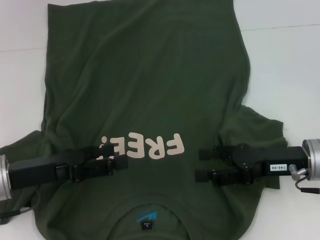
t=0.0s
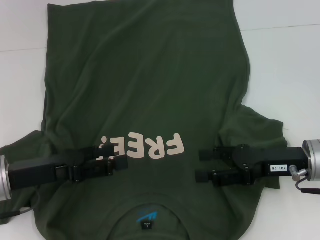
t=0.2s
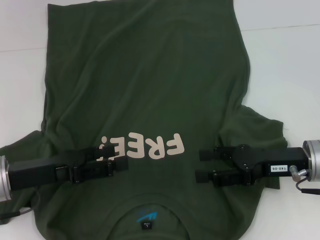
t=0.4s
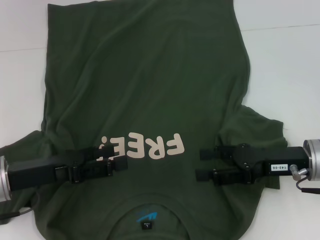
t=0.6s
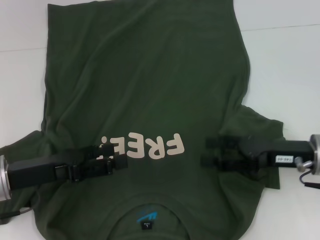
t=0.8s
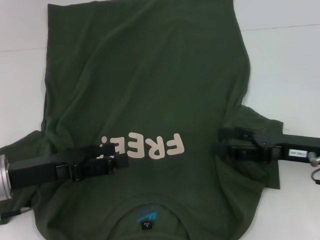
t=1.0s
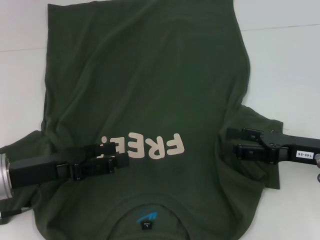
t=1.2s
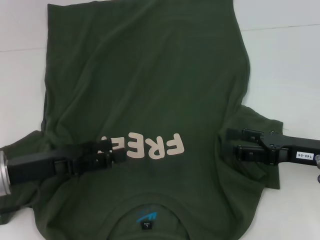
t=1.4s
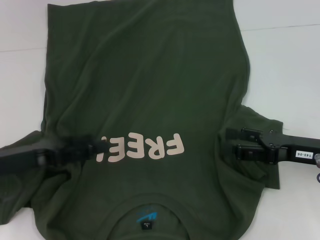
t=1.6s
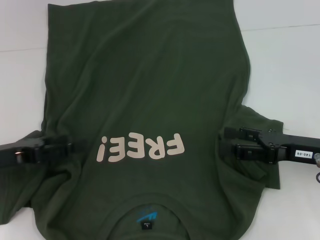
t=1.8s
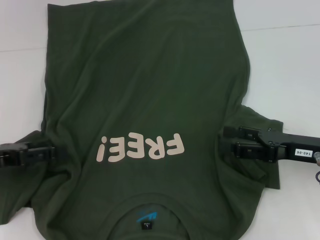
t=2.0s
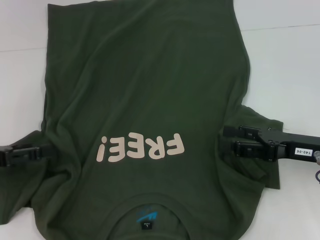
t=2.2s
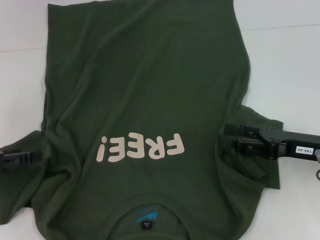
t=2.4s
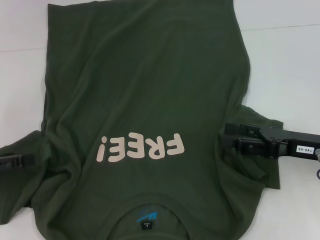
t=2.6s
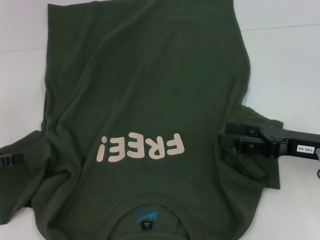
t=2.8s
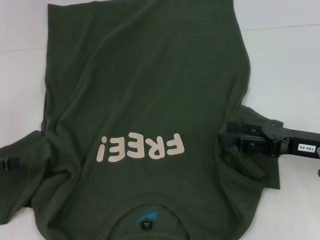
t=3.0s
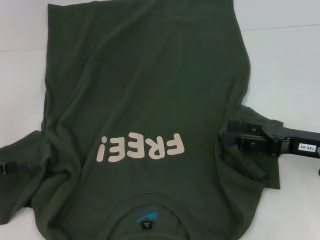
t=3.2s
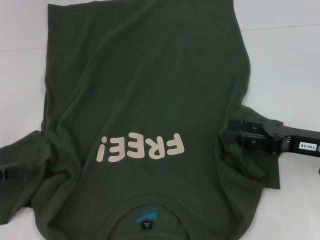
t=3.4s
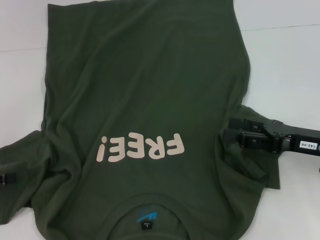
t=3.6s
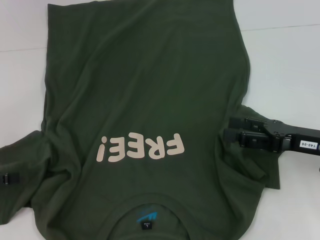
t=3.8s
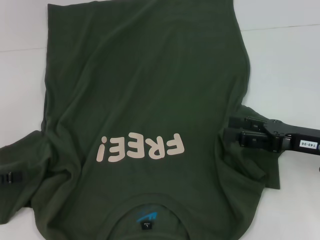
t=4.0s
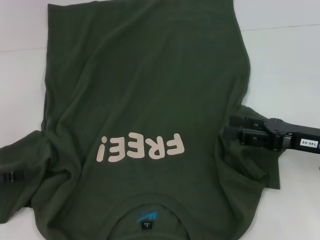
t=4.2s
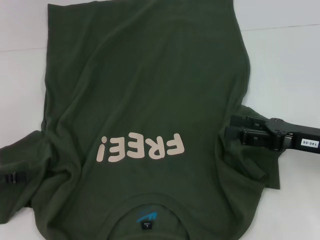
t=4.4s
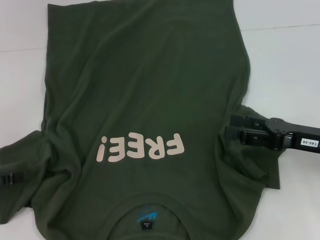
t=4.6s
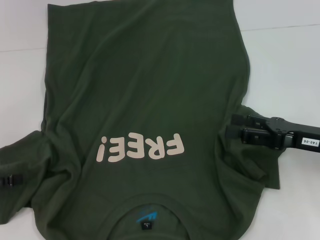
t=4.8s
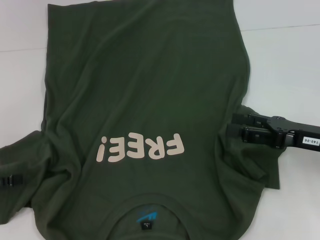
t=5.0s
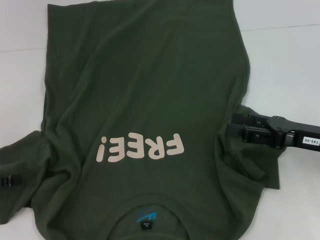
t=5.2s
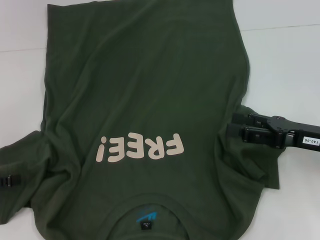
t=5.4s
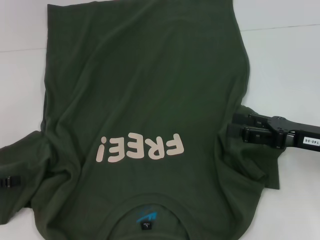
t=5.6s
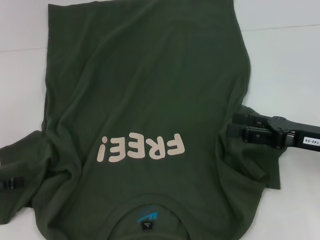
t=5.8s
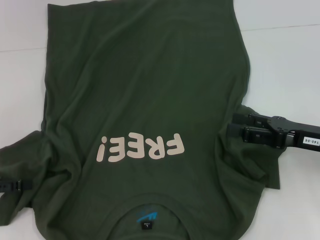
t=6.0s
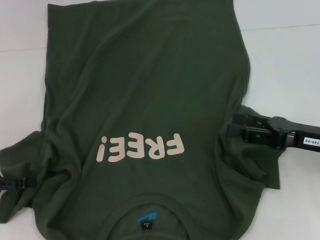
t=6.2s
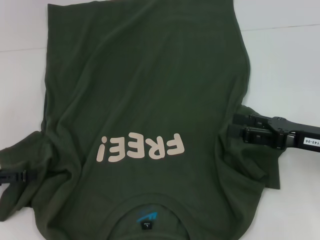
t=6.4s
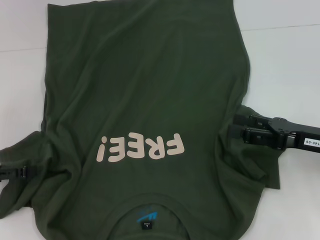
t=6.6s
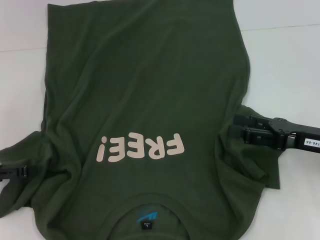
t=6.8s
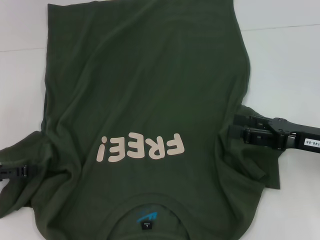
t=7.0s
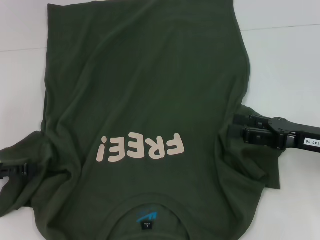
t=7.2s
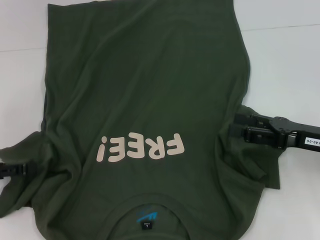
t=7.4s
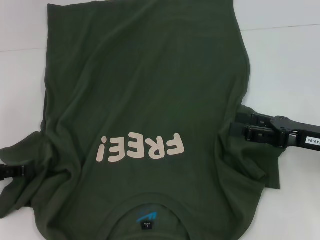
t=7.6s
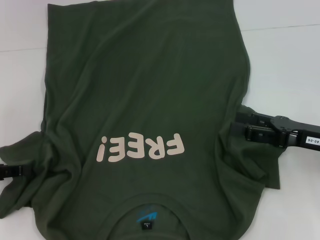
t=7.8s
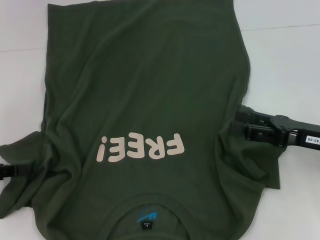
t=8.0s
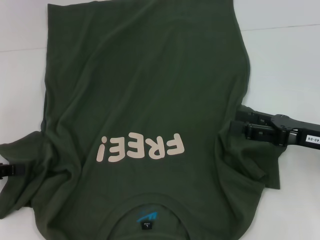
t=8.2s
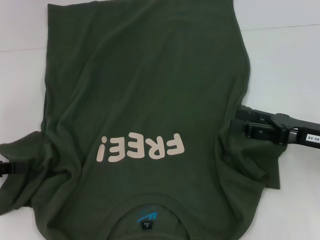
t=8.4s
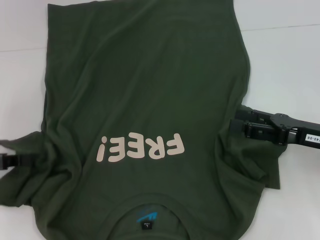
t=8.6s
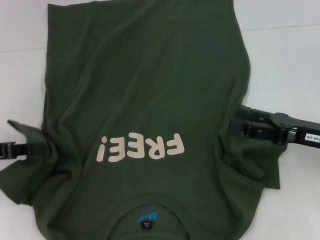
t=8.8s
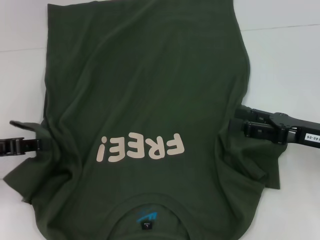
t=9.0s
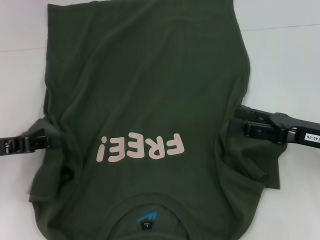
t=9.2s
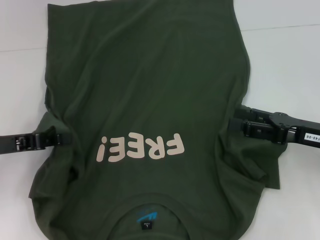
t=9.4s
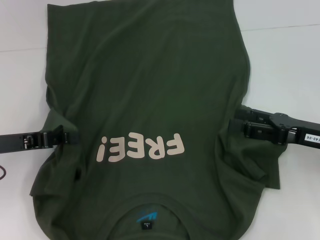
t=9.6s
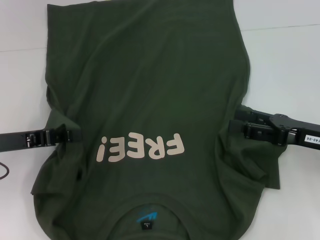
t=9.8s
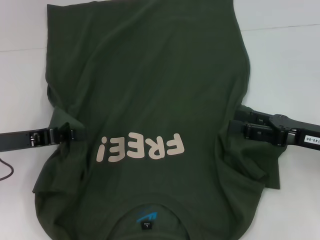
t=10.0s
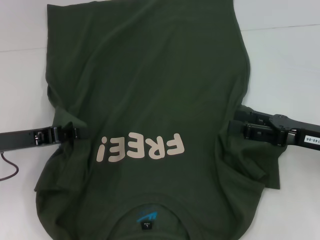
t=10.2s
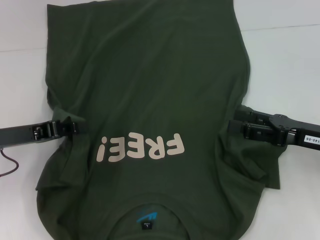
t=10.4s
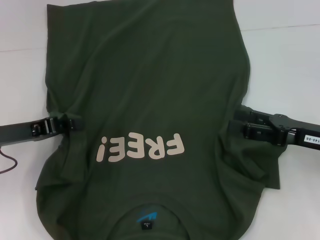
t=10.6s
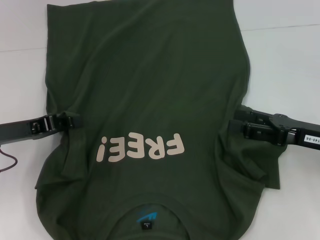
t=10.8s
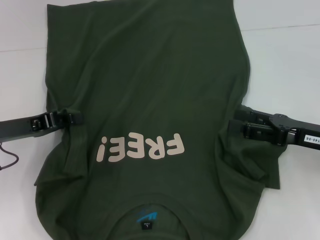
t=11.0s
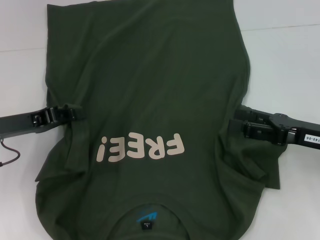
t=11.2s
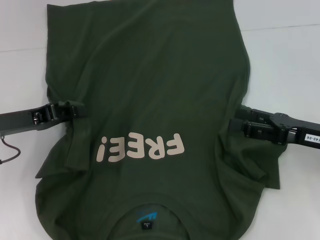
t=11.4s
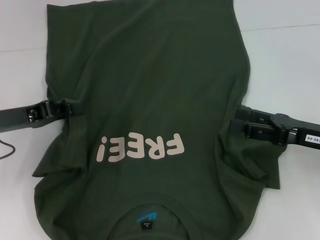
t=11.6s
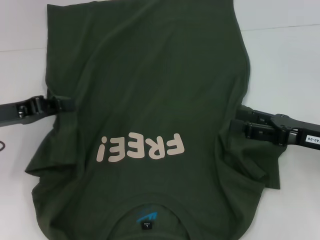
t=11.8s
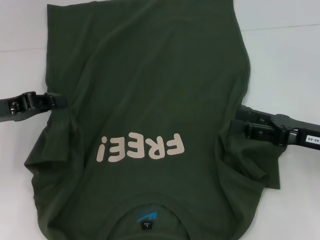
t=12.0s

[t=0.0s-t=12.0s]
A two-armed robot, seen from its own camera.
t=0.0s to t=1.6s: There are only small adjustments of the grippers.
t=1.6s to t=3.0s: The left gripper moves to the left, approximately 10 cm.
t=3.0s to t=4.4s: The grippers move only a little.
t=4.4s to t=6.0s: Both grippers stay put.
t=6.0s to t=7.6s: The grippers stay close to where they were, moving slightly.
t=7.6s to t=9.0s: The left gripper closes up.
t=9.0s to t=10.4s: The left gripper moves roughly 5 cm.
t=10.4s to t=12.0s: The grippers make only small movements.

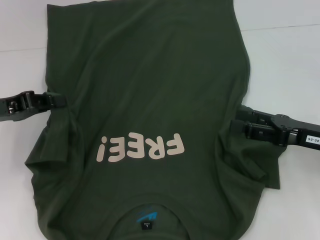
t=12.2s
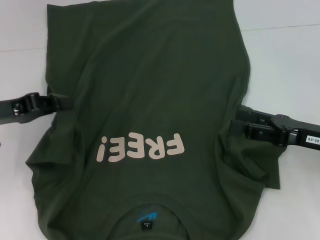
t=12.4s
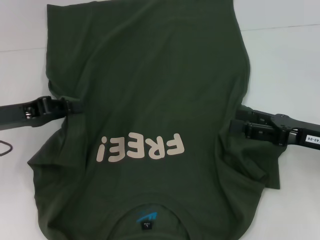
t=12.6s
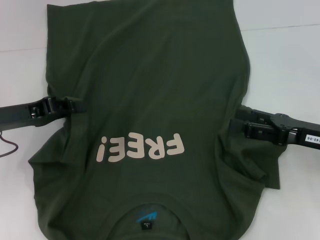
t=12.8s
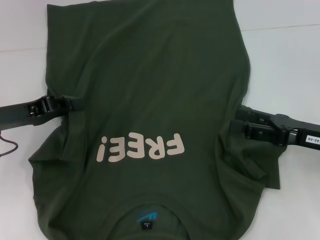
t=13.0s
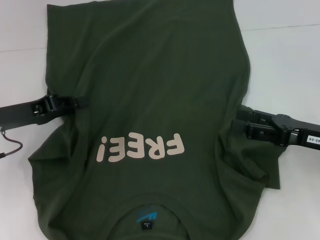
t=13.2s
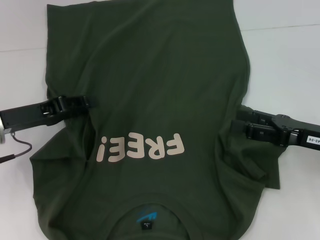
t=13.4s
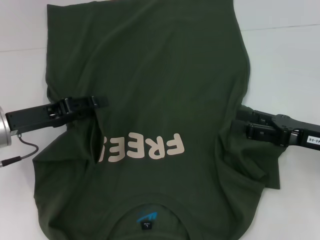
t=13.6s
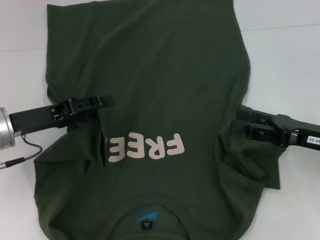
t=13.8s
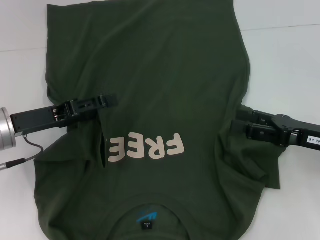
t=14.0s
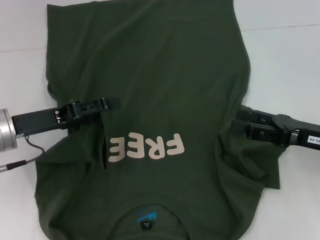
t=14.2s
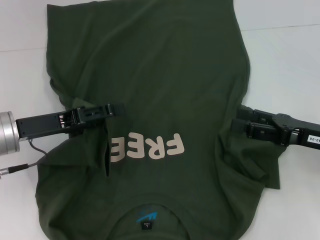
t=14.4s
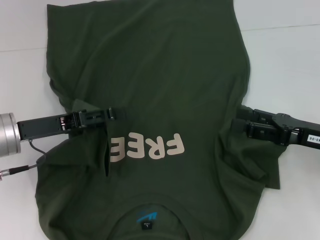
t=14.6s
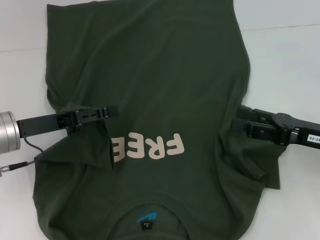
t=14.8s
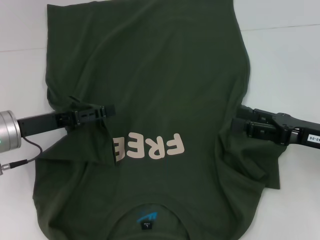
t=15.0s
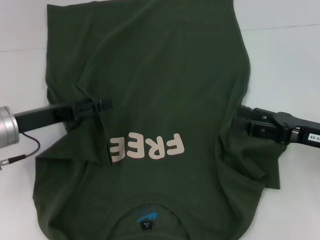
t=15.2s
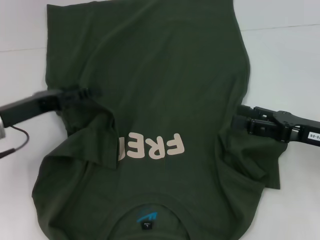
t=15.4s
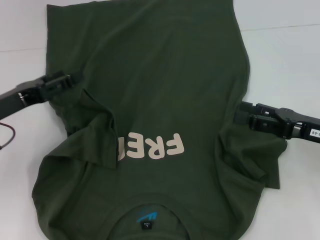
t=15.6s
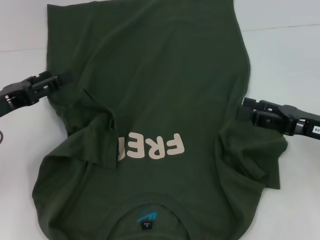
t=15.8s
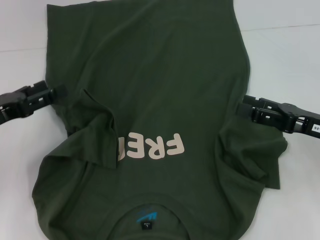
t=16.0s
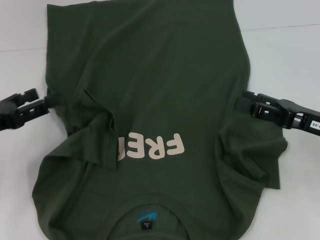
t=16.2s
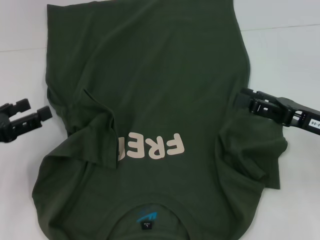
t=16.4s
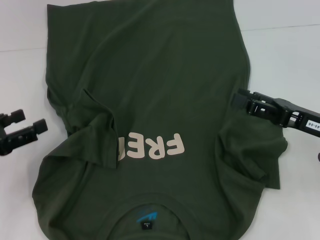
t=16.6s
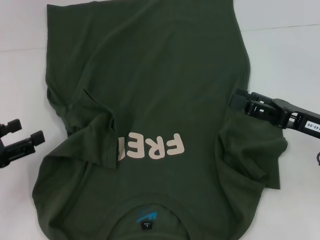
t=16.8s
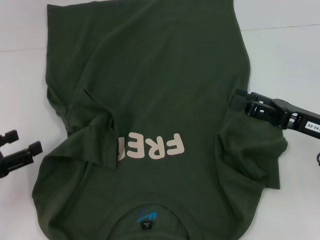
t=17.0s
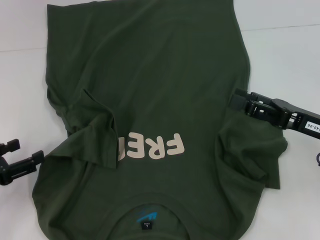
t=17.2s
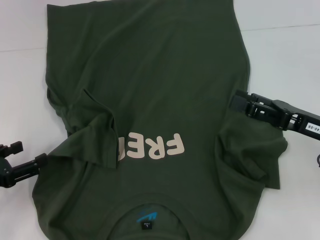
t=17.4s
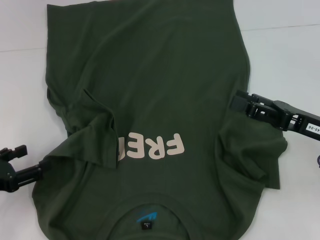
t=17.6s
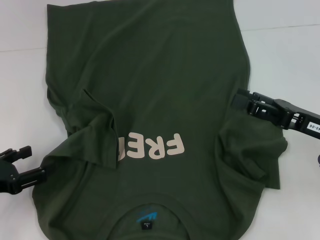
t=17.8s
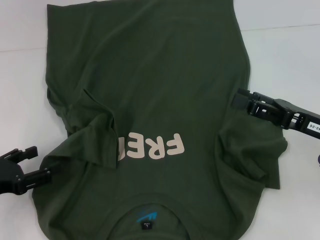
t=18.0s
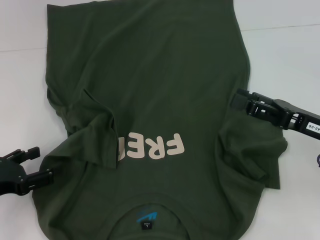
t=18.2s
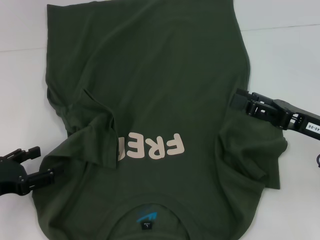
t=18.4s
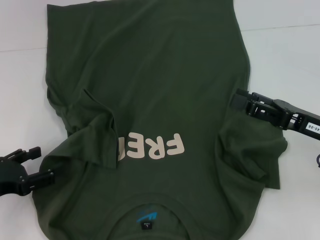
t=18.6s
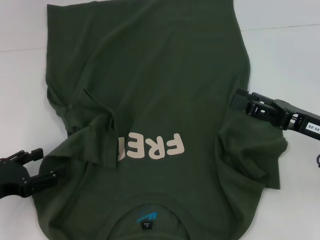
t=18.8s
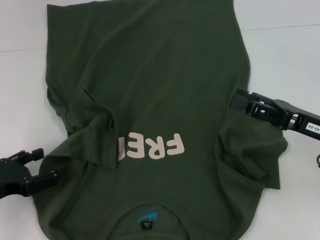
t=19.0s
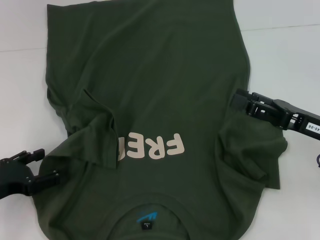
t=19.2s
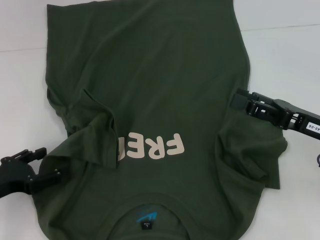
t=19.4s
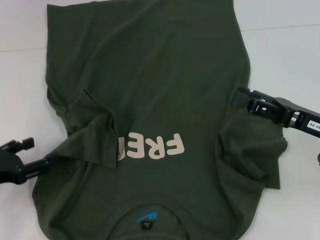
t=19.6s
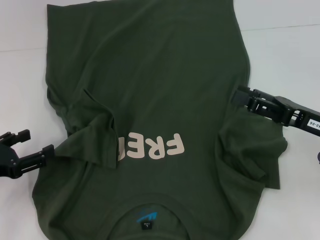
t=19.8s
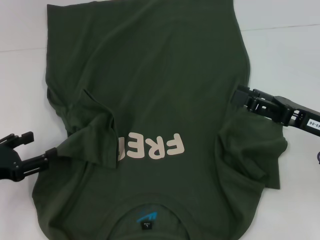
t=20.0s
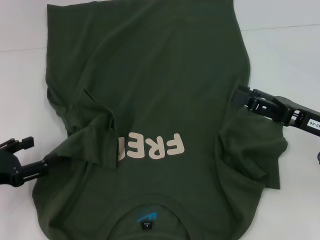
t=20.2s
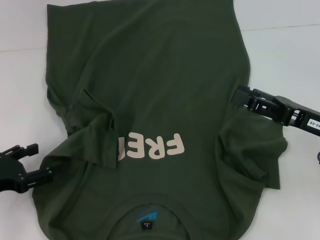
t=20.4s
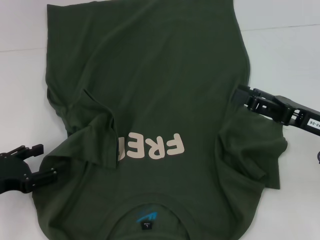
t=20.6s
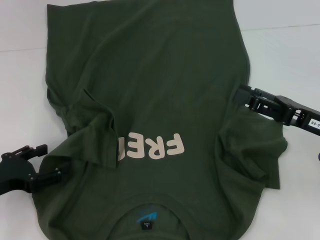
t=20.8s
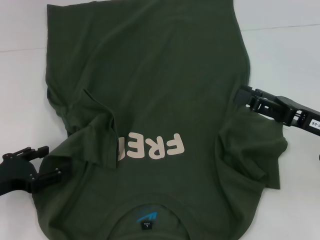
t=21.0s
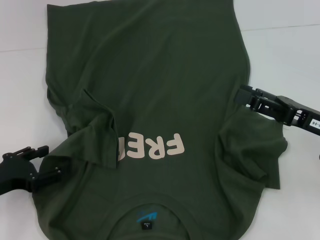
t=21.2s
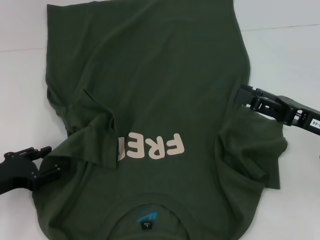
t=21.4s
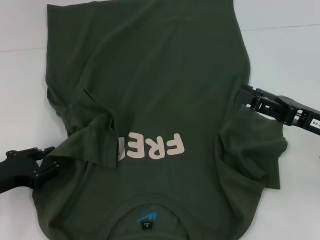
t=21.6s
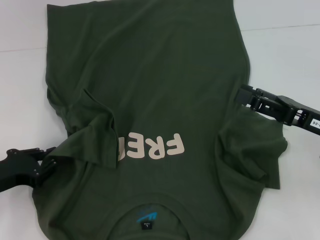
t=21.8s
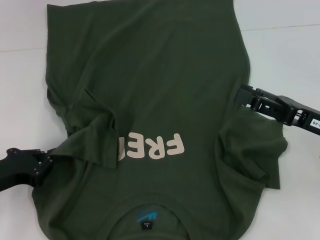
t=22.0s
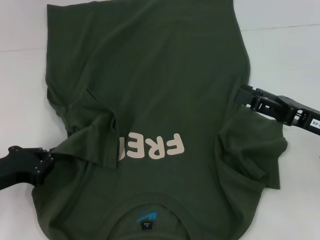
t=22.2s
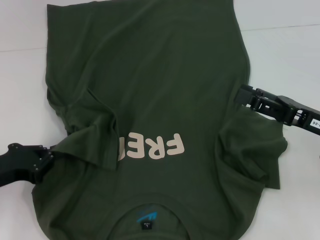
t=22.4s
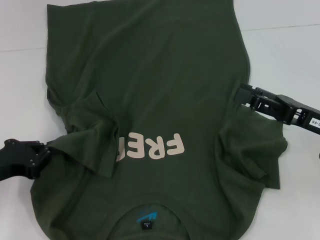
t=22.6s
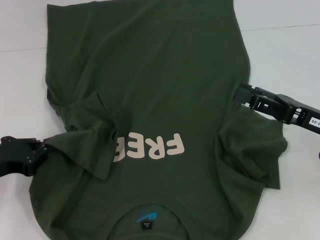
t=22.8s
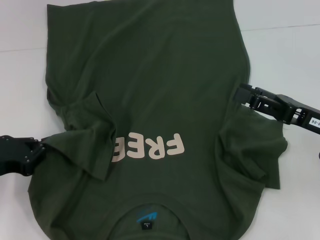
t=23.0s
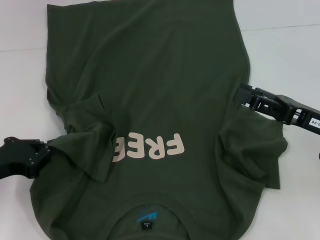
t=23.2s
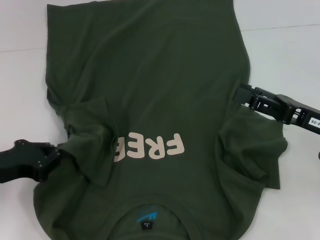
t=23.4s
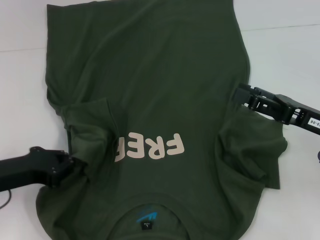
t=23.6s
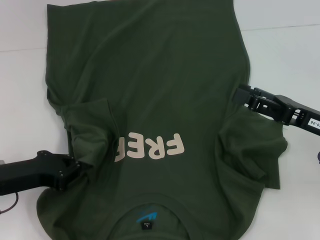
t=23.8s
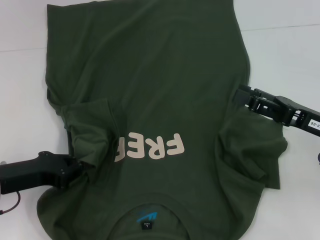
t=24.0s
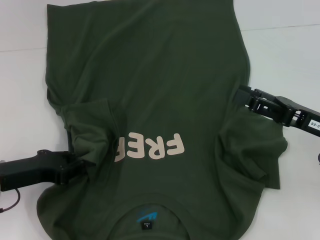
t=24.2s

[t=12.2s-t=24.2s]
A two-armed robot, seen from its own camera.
t=12.2s to t=13.8s: The left gripper heads to the right, covering some 5 cm, and opens its fingers.
t=13.8s to t=15.2s: The left gripper opens.
t=15.2s to t=16.6s: The left gripper heads to the left and backward, covering approximately 10 cm.
t=16.6s to t=21.2s: The grippers move only a little.
t=21.2s to t=22.6s: The left gripper closes its fingers.
t=22.6s to t=24.2s: The grippers move only a little.
